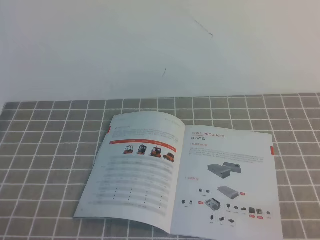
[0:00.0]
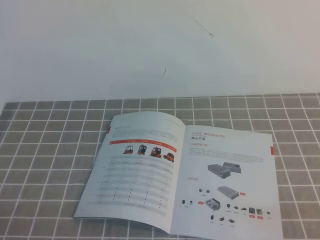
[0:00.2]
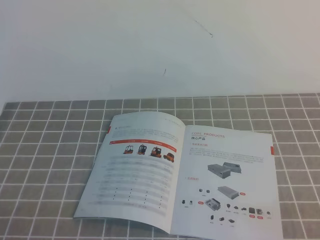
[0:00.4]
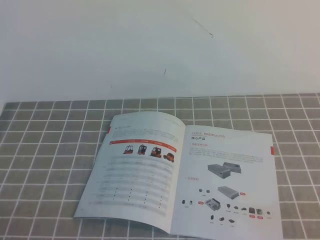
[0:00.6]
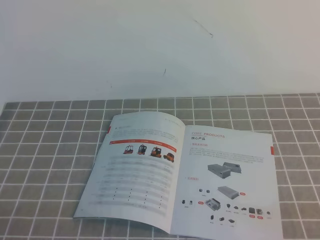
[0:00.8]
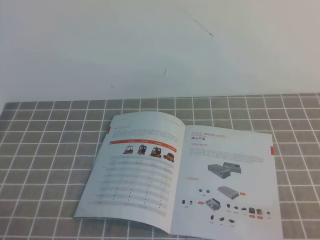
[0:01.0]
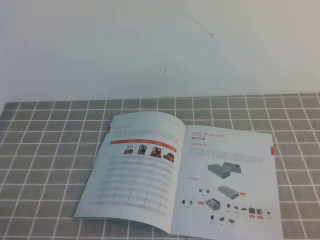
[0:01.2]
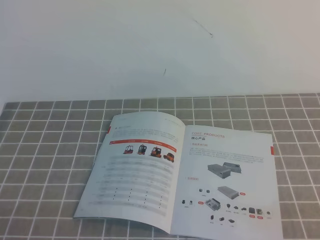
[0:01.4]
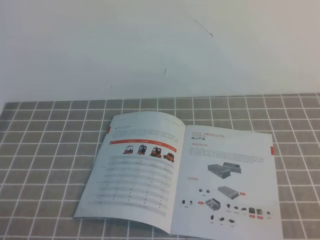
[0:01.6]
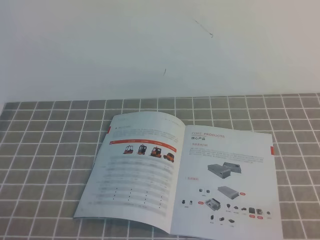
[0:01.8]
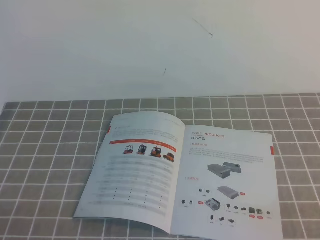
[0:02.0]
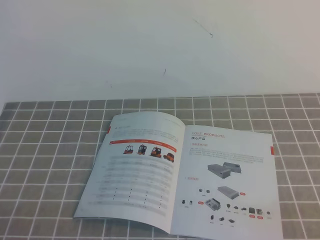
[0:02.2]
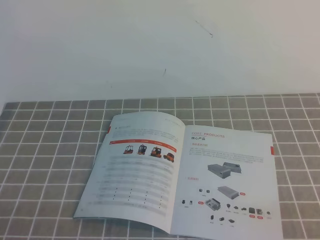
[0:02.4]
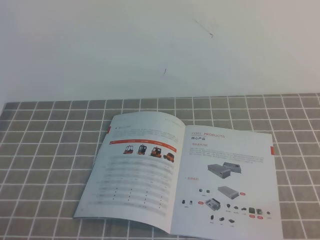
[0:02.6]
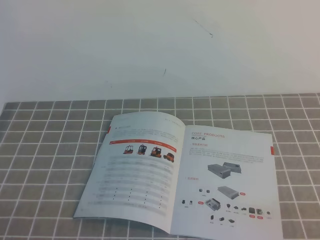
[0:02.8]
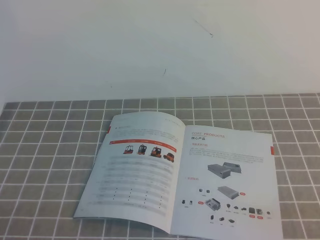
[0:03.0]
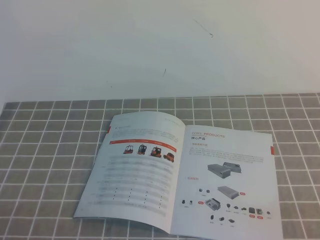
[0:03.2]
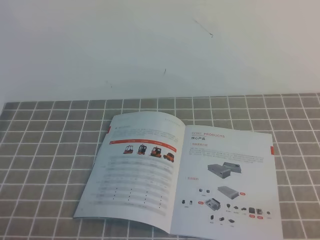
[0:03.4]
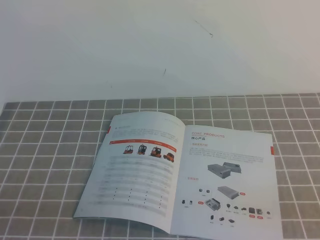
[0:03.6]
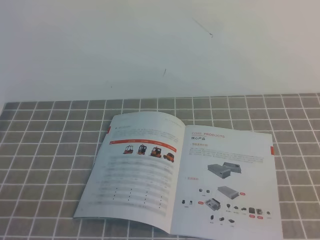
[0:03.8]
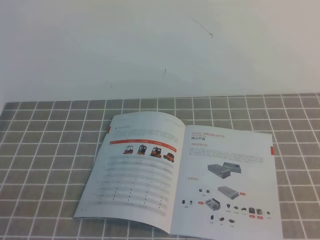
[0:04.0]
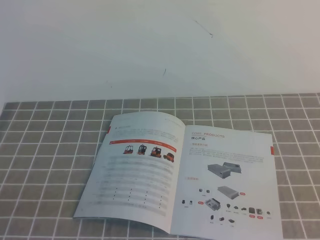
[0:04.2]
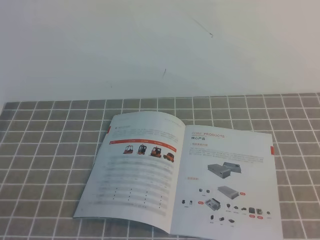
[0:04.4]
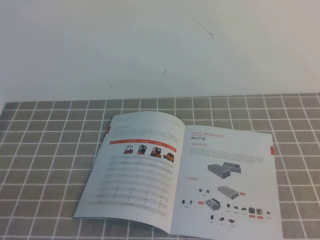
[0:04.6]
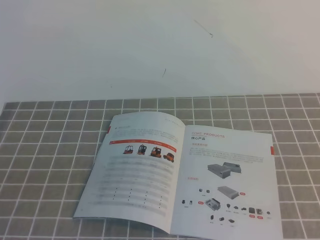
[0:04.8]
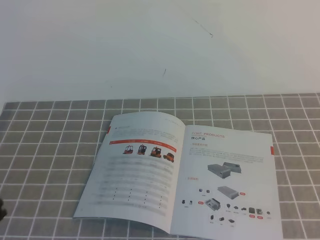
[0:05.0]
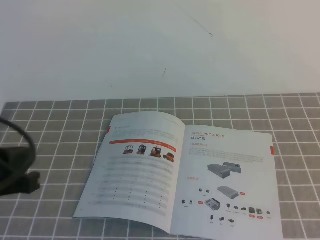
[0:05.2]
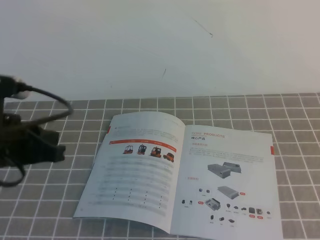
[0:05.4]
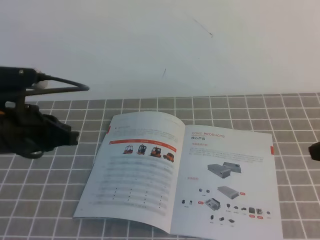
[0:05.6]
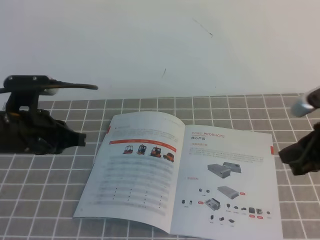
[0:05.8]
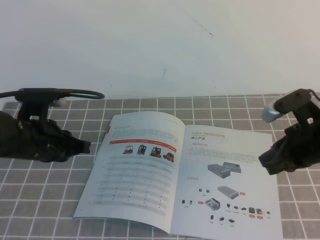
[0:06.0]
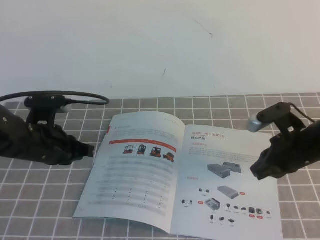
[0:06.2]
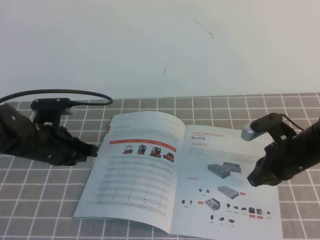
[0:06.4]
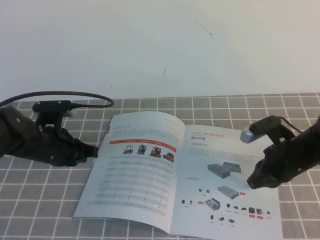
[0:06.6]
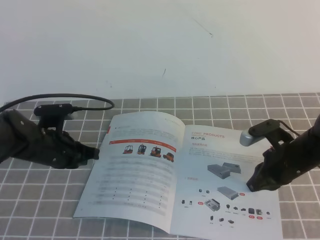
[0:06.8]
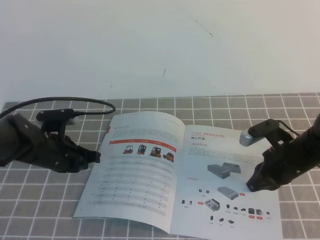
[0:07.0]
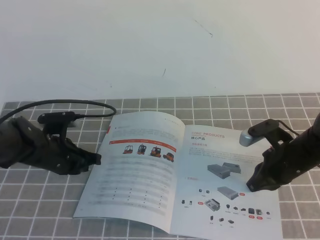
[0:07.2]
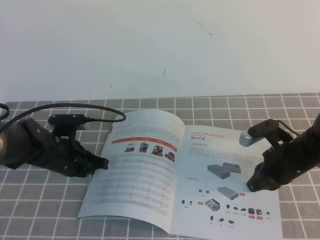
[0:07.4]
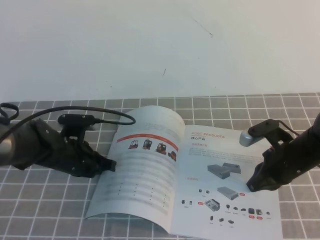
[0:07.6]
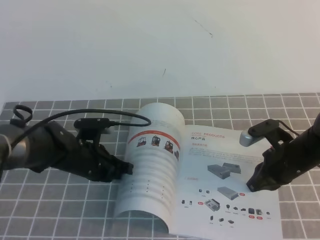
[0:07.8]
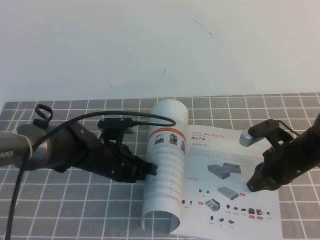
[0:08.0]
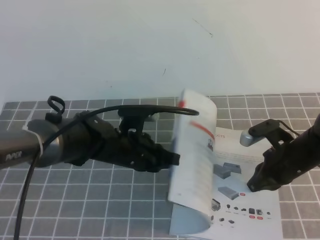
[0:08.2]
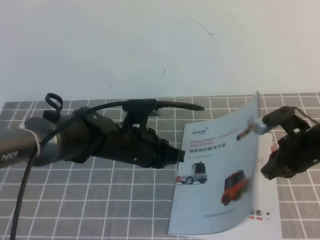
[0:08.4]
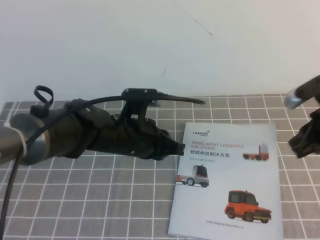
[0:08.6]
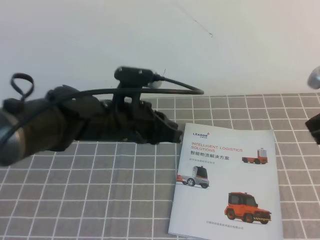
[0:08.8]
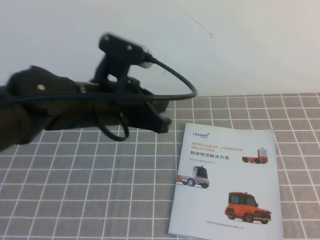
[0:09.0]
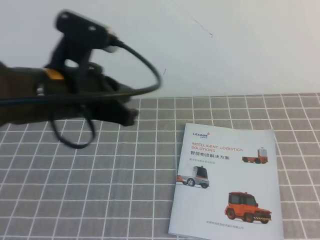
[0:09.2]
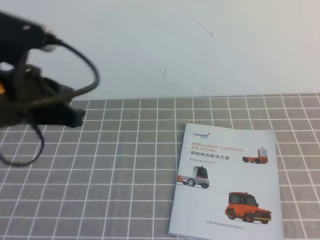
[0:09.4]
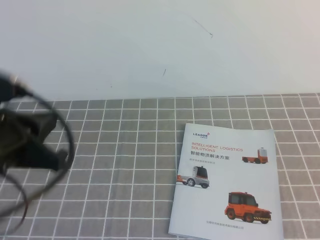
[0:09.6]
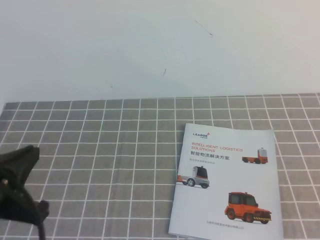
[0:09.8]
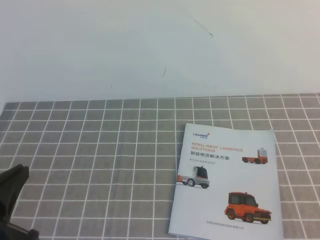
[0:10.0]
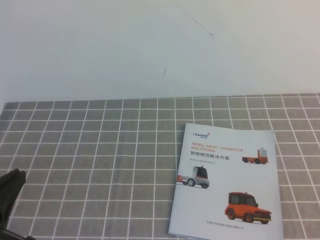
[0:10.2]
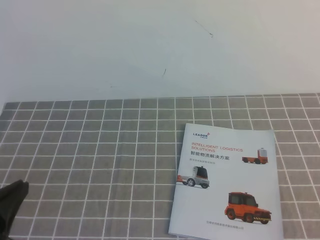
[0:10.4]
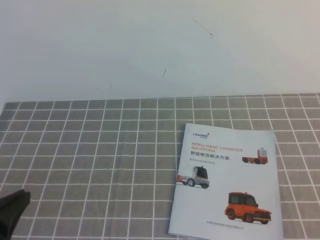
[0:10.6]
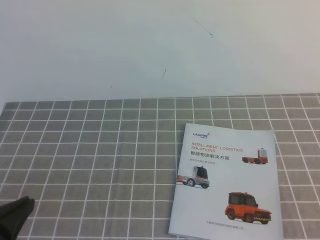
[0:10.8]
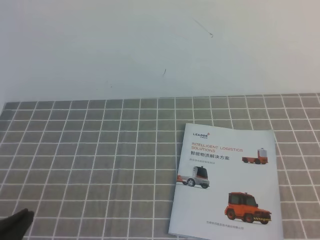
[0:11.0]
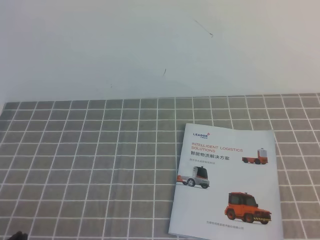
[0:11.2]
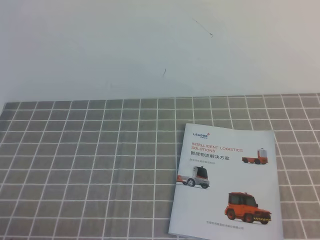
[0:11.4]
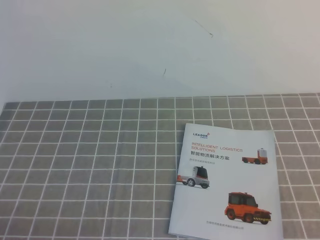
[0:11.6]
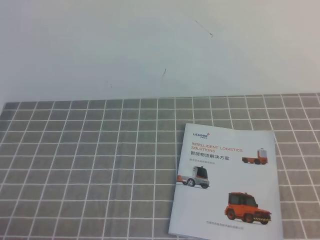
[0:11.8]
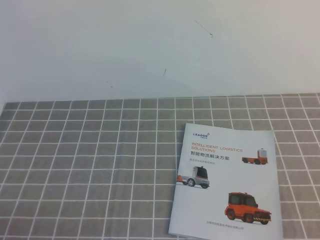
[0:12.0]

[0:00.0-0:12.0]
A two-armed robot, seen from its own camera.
Task of the whole recording: on the grey tablecloth, hold the book with one hand and close it with the other.
0:00.0 to 0:03.0: Both grippers stay put.
0:04.4 to 0:06.0: The two grippers go some 25 cm forward.
0:06.0 to 0:07.6: The two grippers go about 10 cm downward.
0:07.6 to 0:09.0: The right gripper travels upward by approximately 20 cm, while the left gripper shifts some 20 cm upward and to the right.
0:09.0 to 0:10.4: The left gripper goes approximately 25 cm backward and to the left. The right gripper shifts some 20 cm backward.
0:10.4 to 0:12.0: The left gripper moves downward, roughly 10 cm.

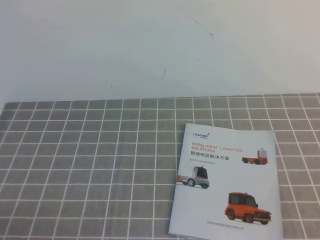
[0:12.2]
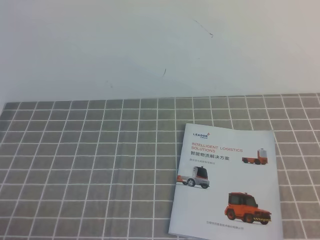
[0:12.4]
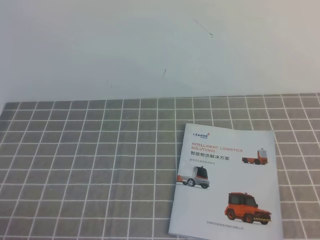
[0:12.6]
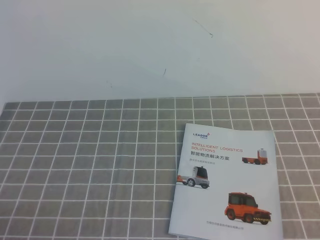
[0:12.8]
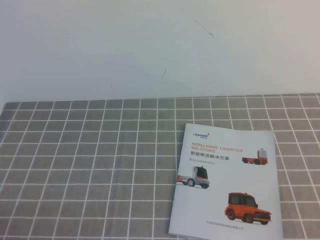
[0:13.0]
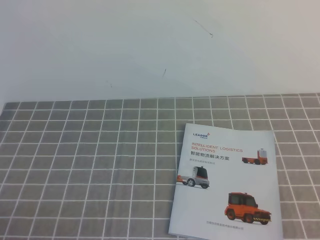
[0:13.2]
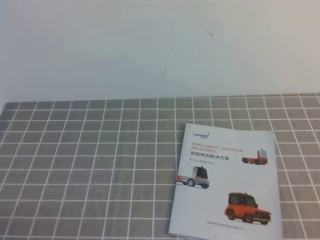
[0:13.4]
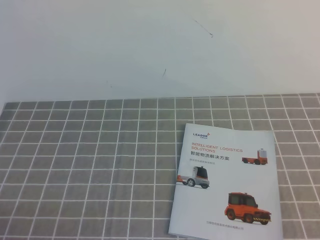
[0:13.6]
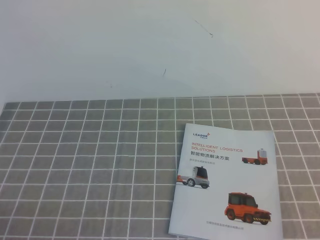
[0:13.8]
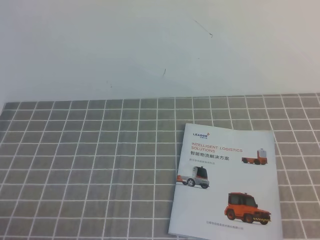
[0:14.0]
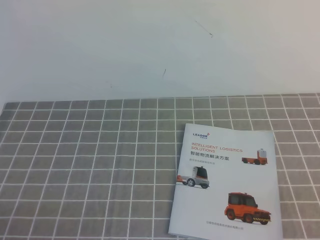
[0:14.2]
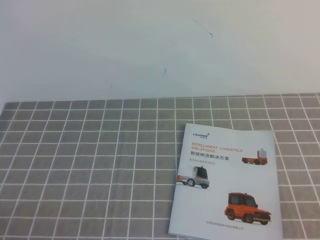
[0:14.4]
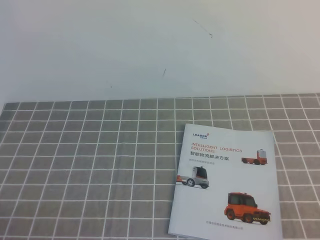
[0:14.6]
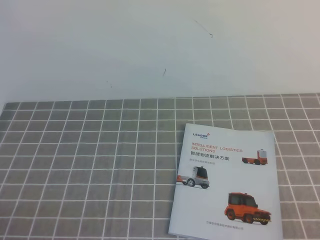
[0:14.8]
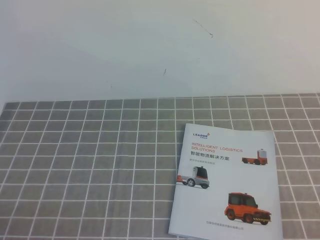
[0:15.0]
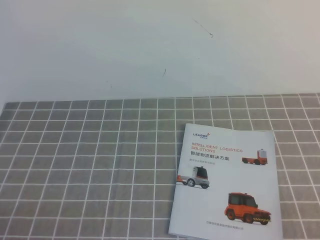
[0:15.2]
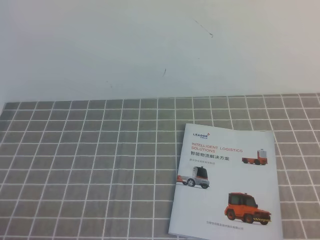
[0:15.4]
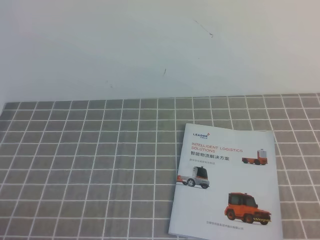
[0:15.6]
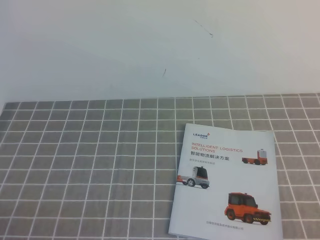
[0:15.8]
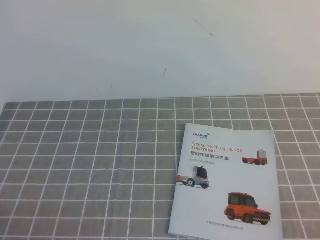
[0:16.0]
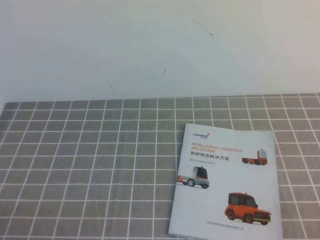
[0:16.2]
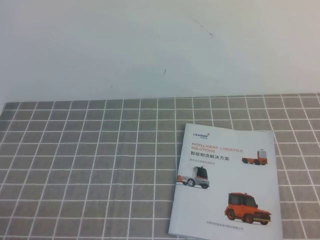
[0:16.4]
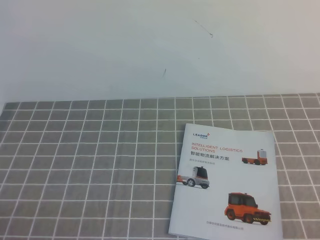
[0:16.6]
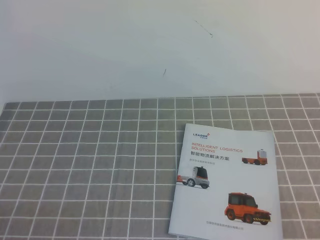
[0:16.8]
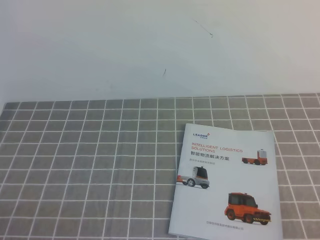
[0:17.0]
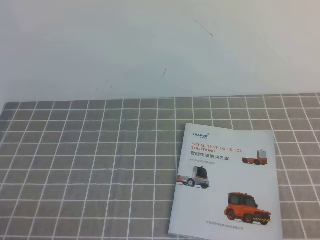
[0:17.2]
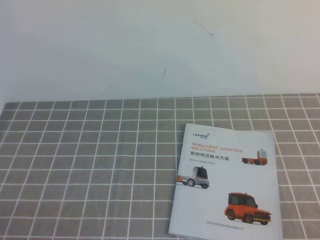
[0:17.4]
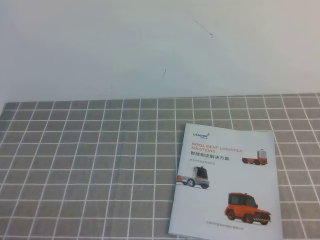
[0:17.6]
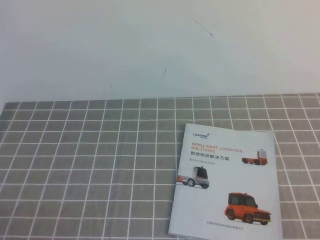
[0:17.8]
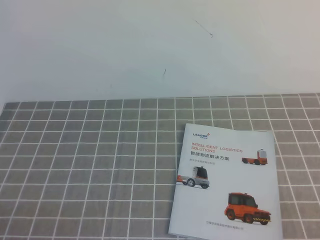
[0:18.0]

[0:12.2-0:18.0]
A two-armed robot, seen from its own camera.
Task of the whole recording: on the grey tablecloth, hold the book with one hand and close it with the other.
0:12.2 to 0:13.6: The two grippers keep their place.
0:15.0 to 0:16.6: Both grippers stay about where they are.
